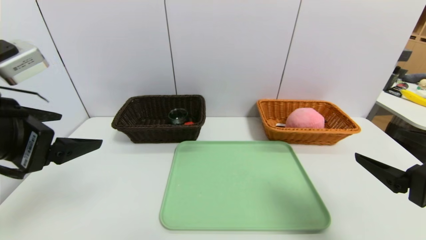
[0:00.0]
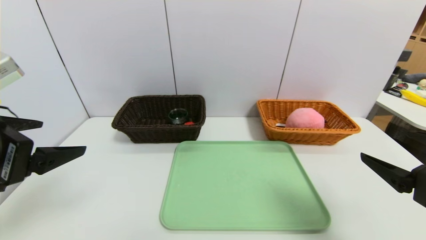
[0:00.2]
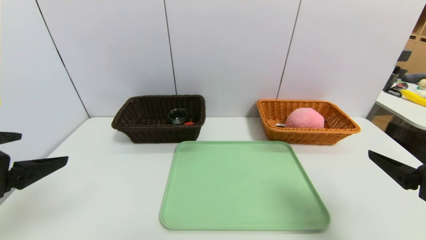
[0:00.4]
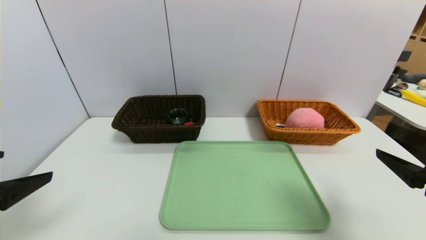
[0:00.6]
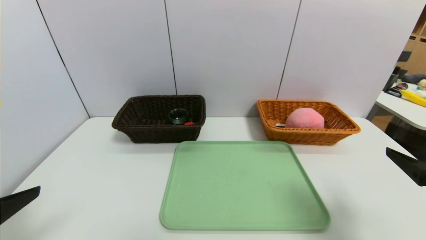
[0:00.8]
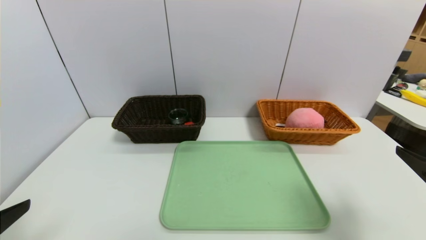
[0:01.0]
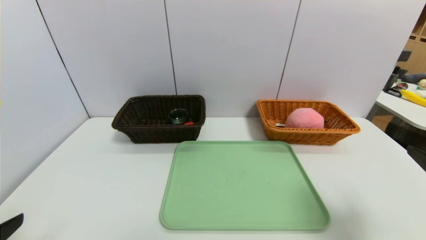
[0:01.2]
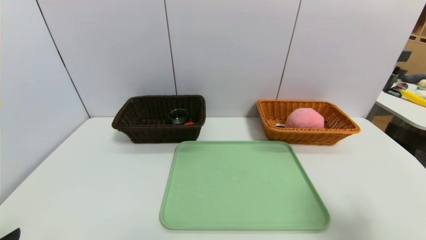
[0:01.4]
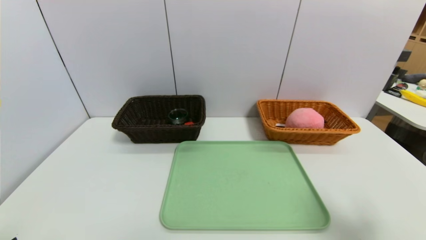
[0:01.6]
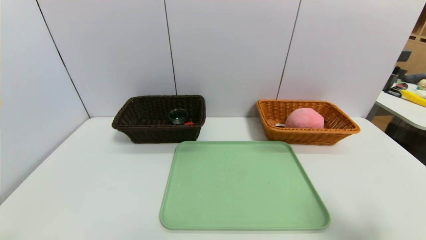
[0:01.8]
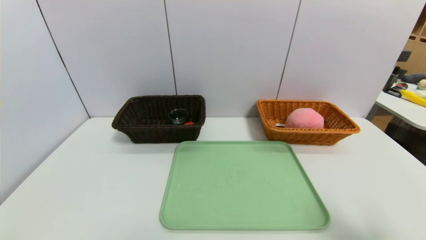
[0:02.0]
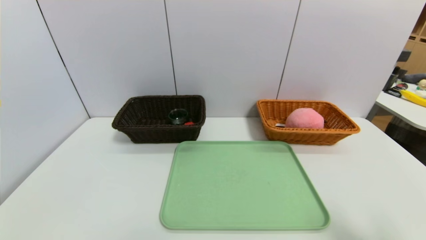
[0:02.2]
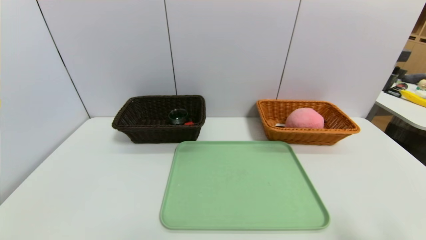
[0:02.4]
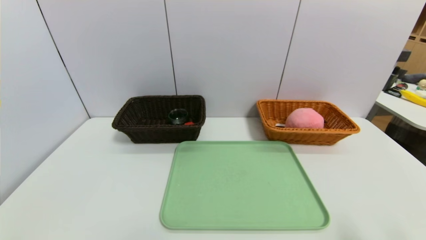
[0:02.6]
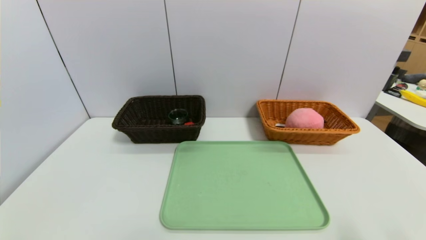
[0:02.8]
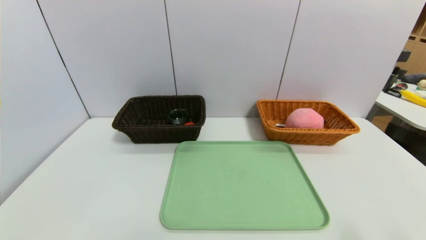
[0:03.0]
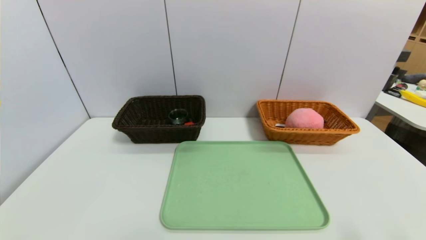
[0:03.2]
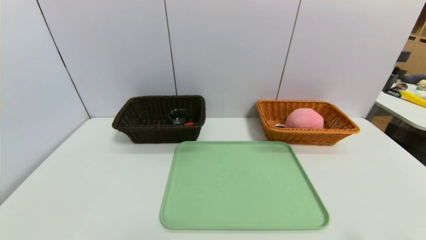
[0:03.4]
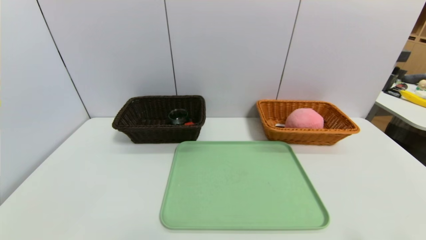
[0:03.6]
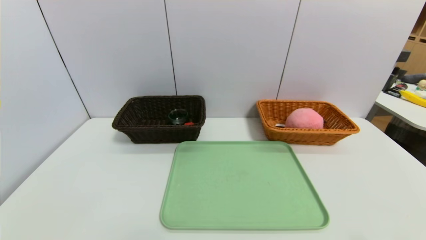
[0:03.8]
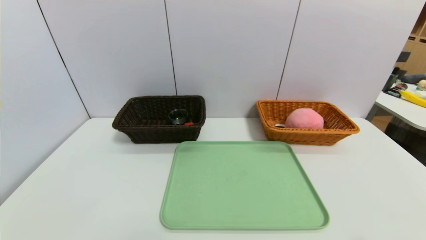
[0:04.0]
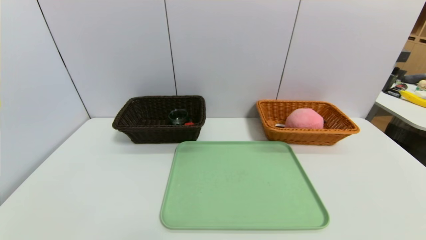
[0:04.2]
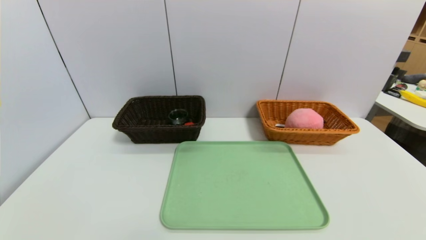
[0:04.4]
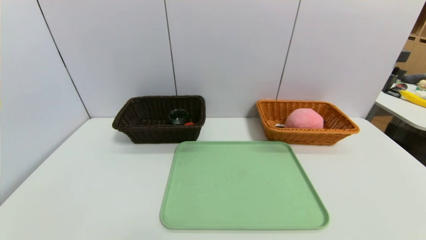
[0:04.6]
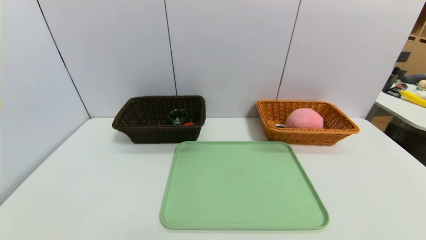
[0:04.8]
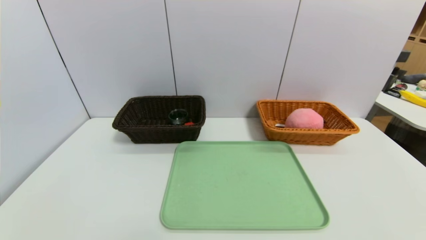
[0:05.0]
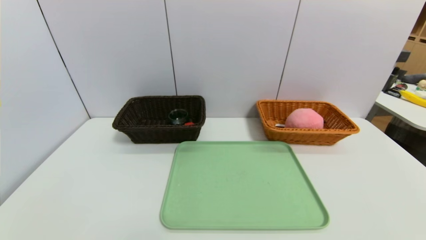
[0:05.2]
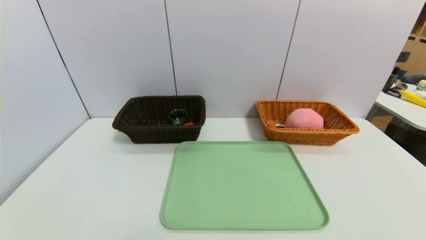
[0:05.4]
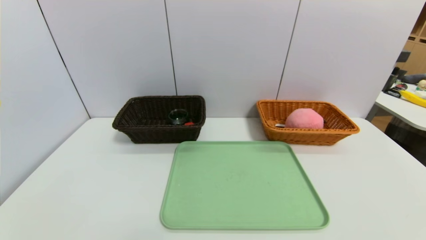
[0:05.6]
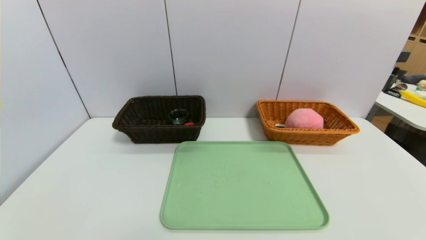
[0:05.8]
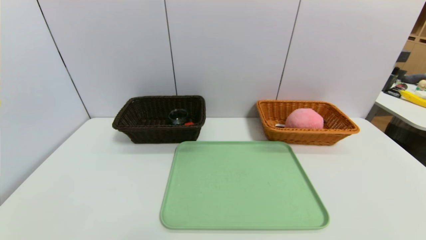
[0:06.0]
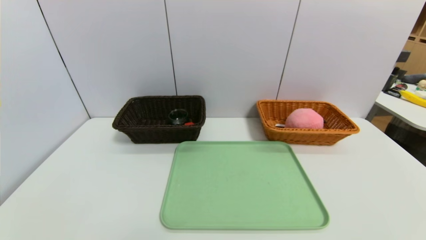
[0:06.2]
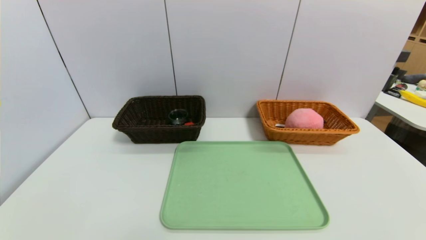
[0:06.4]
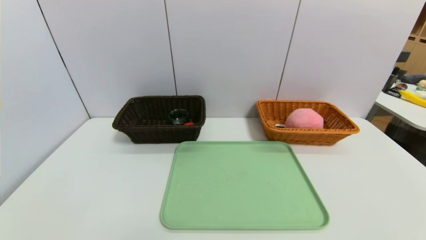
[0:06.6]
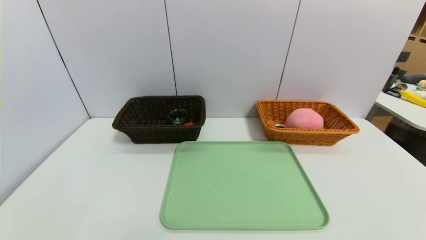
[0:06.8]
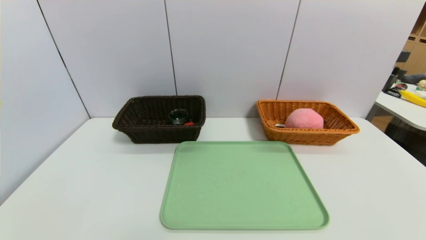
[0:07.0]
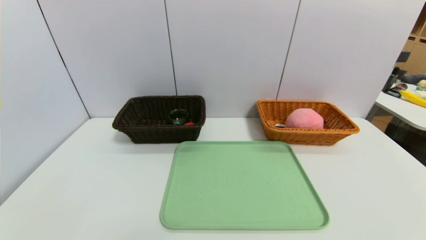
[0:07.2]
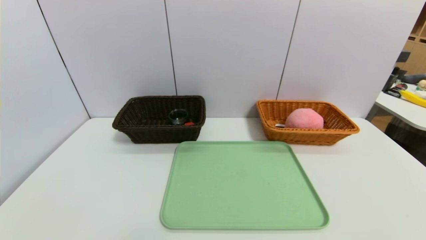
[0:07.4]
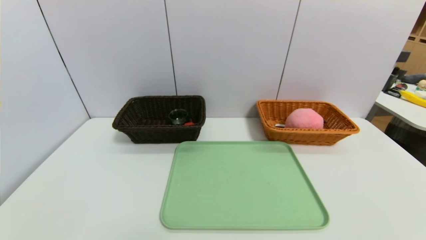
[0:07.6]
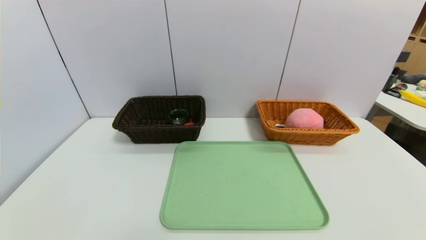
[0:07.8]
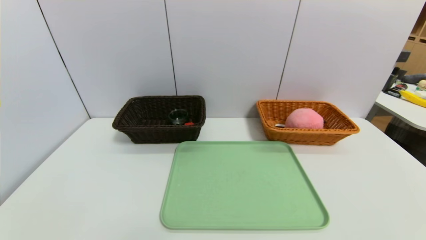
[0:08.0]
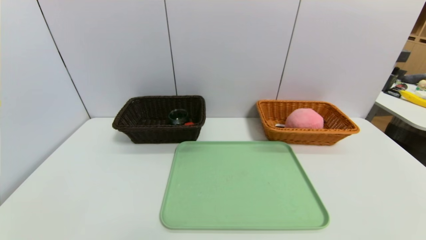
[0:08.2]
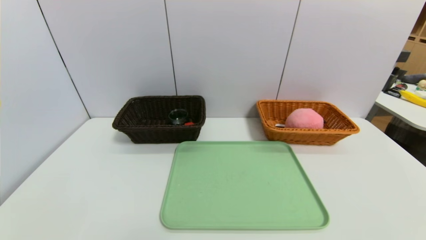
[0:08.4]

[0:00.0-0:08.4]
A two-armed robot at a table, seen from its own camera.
Task of the whole recording: place the food in the right basket with the right gripper, and place the non food items in the left basket with the left gripper.
0:00.0 to 0:01.4: The left gripper is displaced backward and downward by roughly 15 cm; the right gripper moves some 5 cm.
0:01.4 to 0:02.8: The right gripper heads backward, covering approximately 5 cm.
0:07.0 to 0:08.4: Neither gripper changes place.
